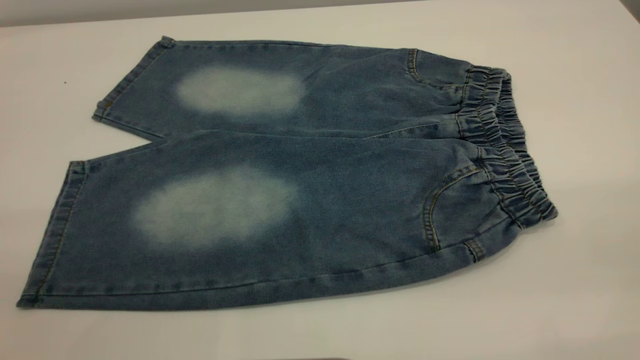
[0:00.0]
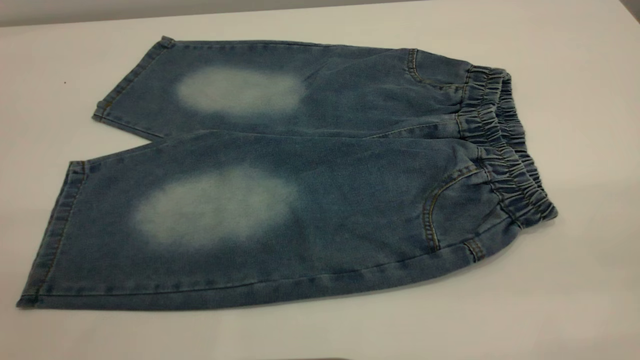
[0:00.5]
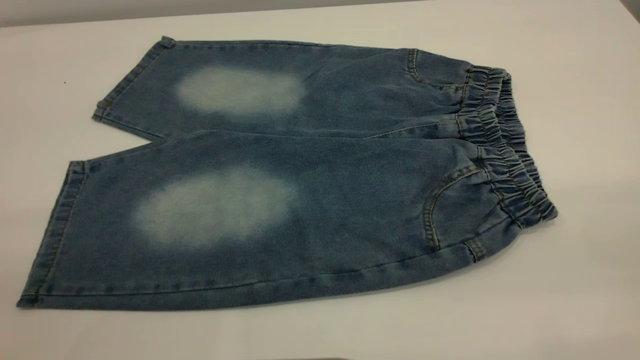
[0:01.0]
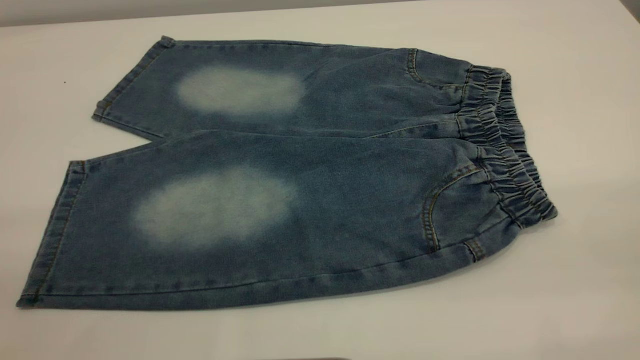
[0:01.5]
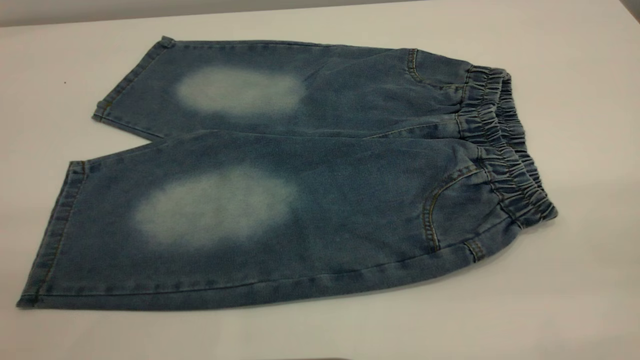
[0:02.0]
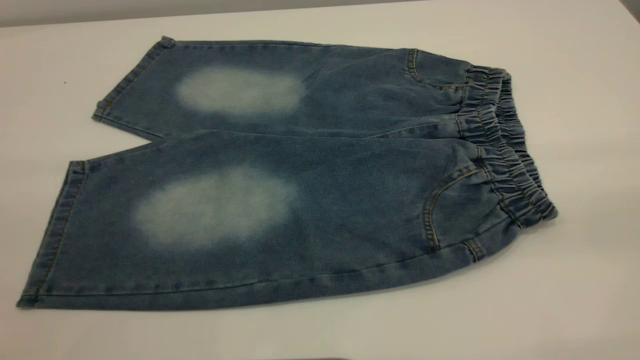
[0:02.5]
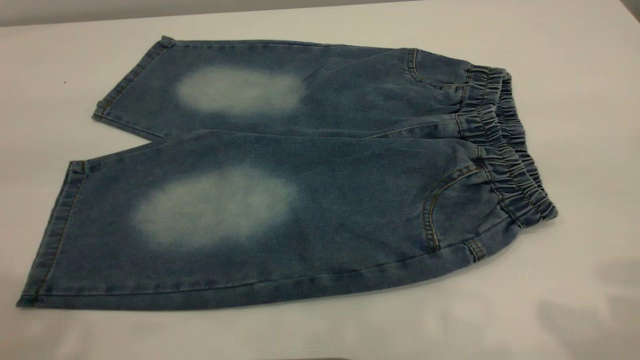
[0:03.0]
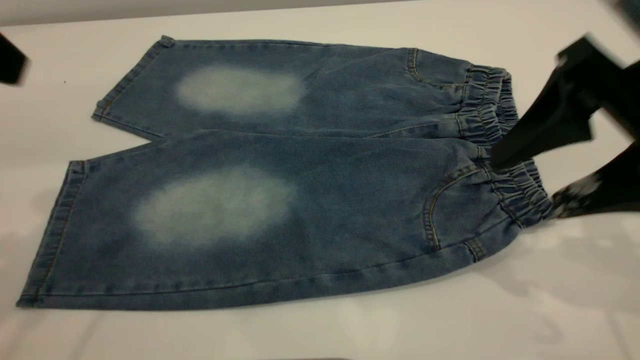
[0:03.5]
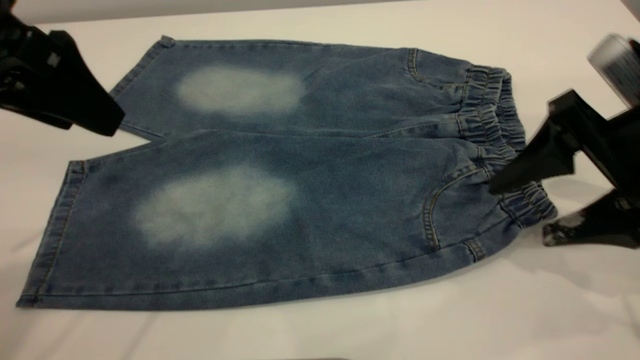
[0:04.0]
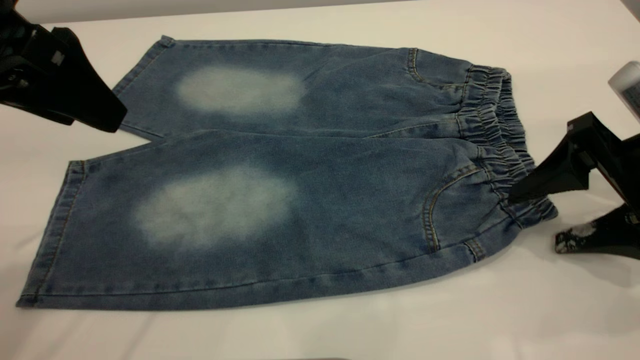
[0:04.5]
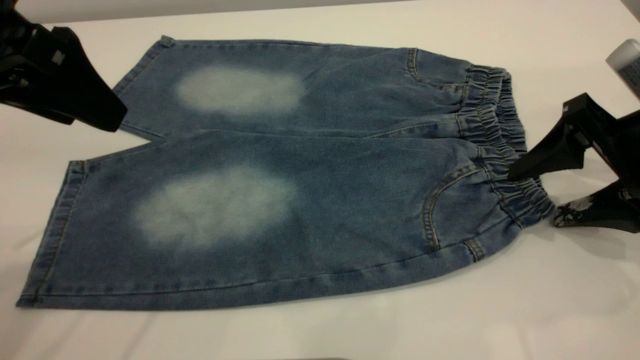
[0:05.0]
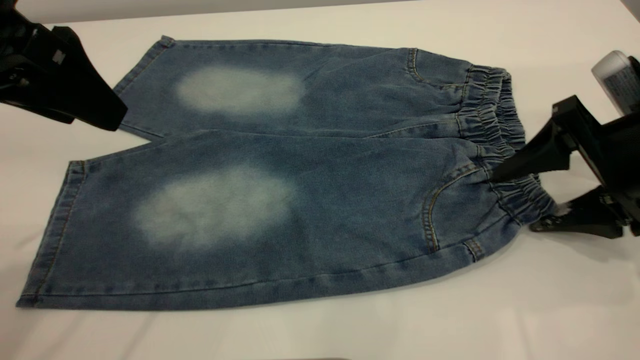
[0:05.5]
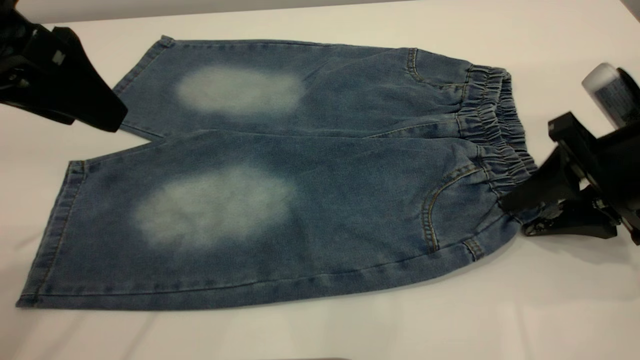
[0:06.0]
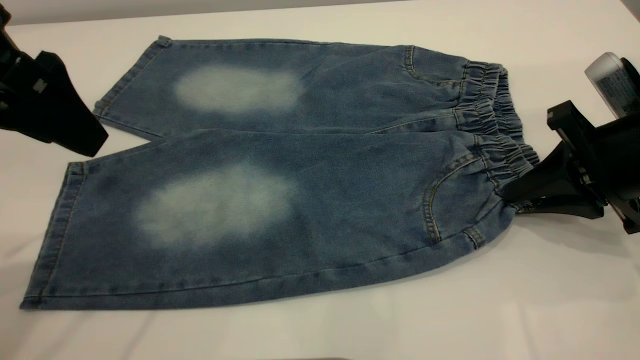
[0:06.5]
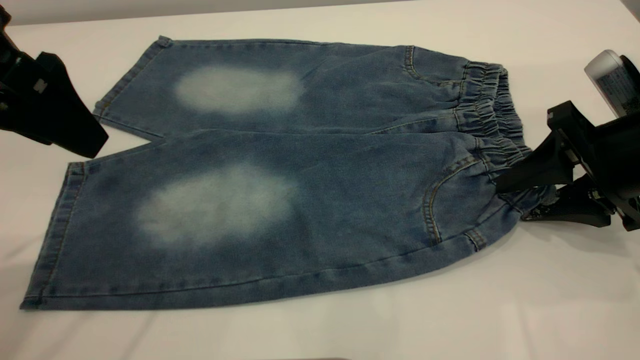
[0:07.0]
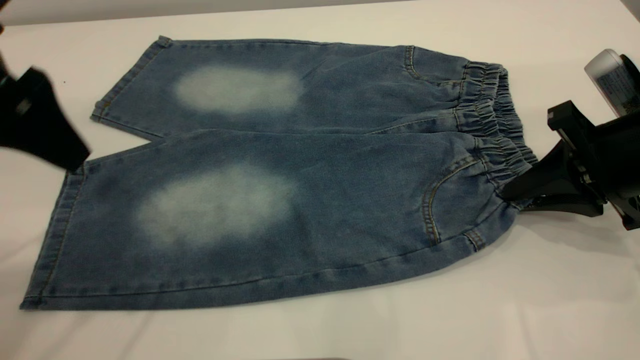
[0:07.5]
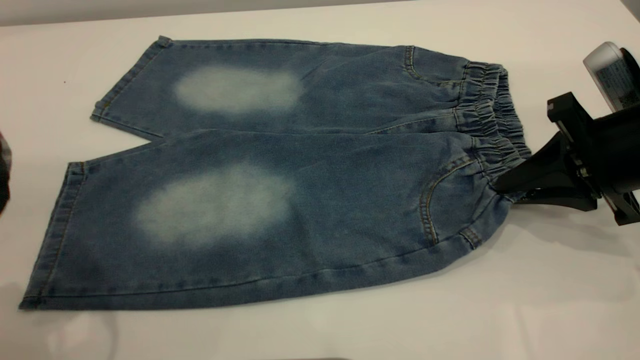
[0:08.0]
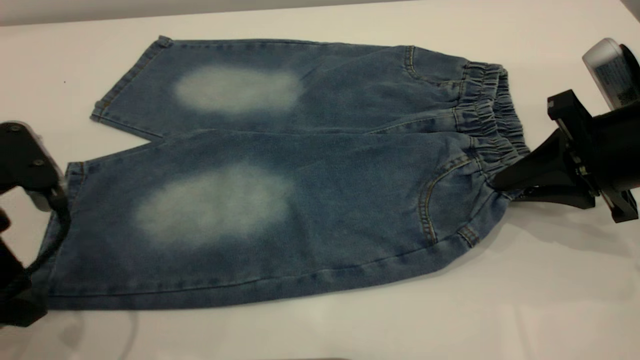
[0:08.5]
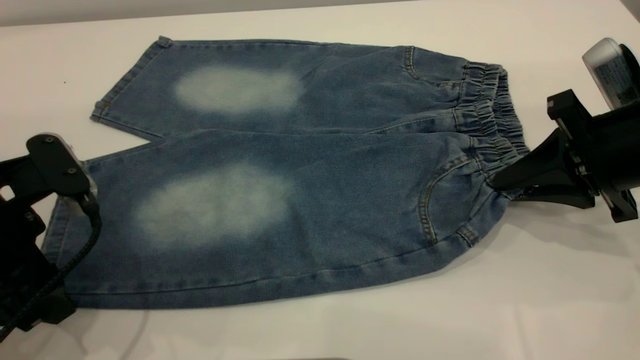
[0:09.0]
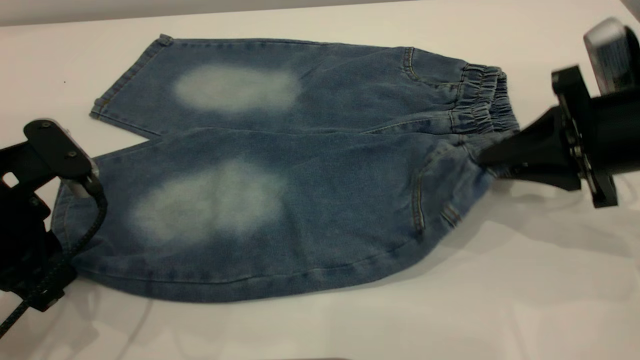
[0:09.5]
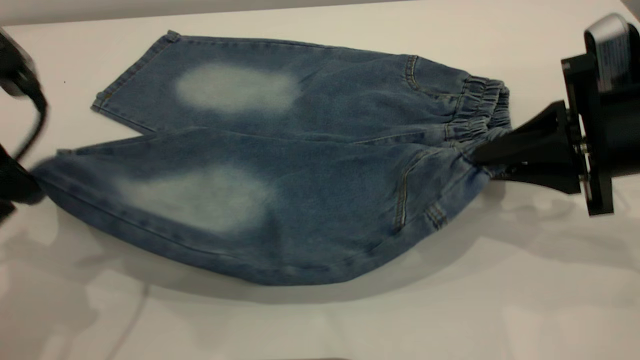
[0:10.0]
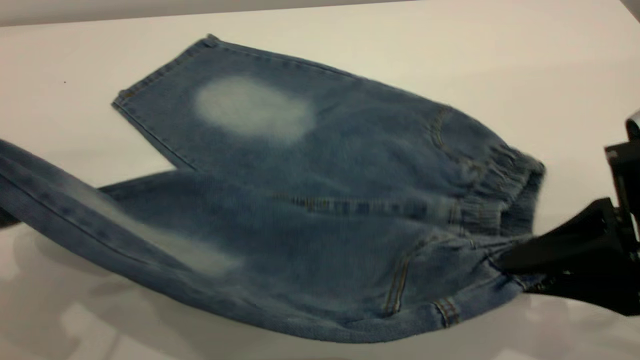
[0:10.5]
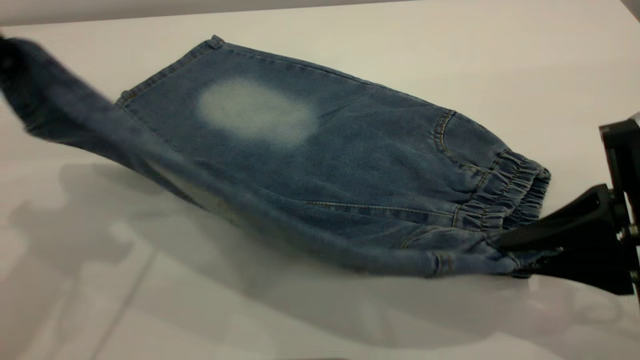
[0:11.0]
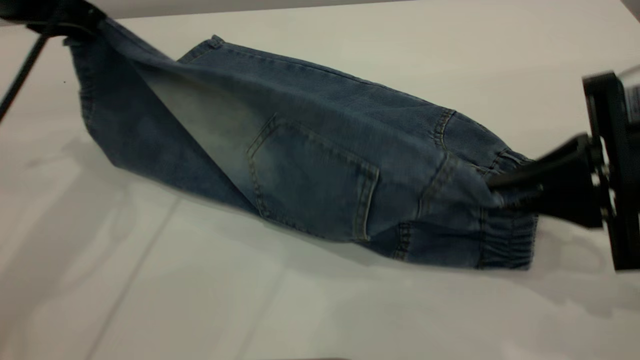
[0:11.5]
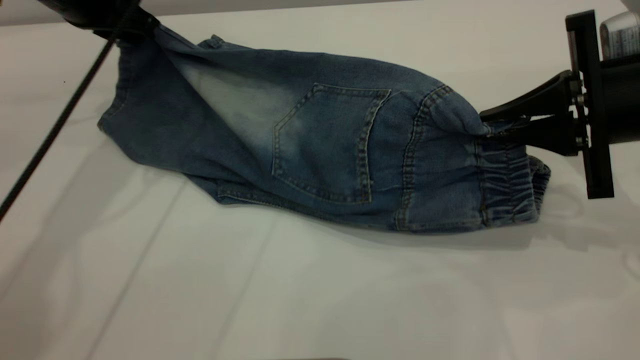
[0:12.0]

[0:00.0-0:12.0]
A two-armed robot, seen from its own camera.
0:00.0 to 0:02.0: The two grippers keep their place.
0:02.0 to 0:04.0: The right gripper goes some 30 cm forward and downward, while the left gripper goes approximately 25 cm forward, and opens.
0:04.0 to 0:06.0: The right gripper closes its fingers.
0:06.0 to 0:08.0: The left gripper shifts approximately 10 cm downward and backward.
0:08.0 to 0:10.0: The left gripper travels downward and back again, approximately 5 cm each way, and closes its fingers.
0:10.0 to 0:12.0: The left gripper shifts about 20 cm forward; the right gripper travels backward and back again, roughly 10 cm each way.

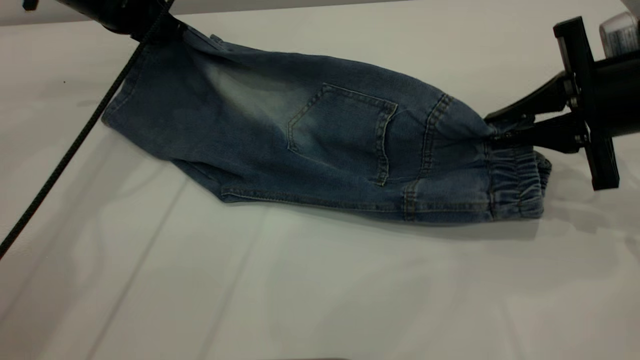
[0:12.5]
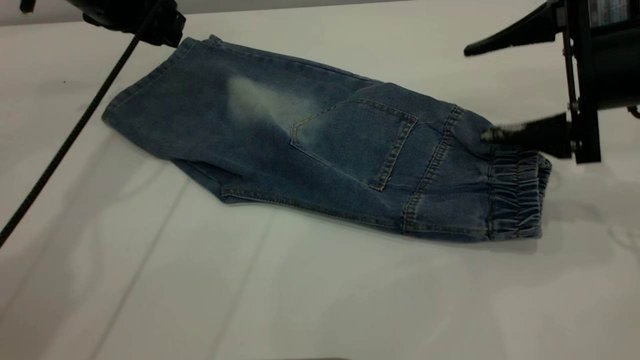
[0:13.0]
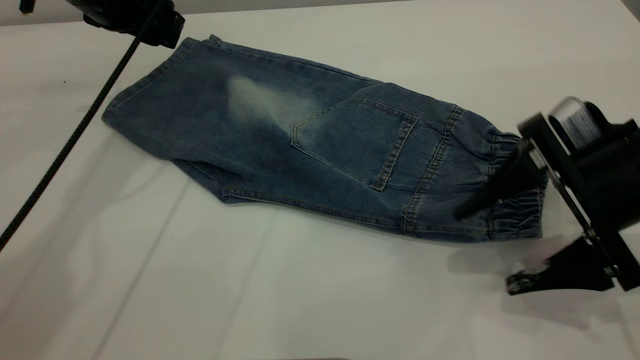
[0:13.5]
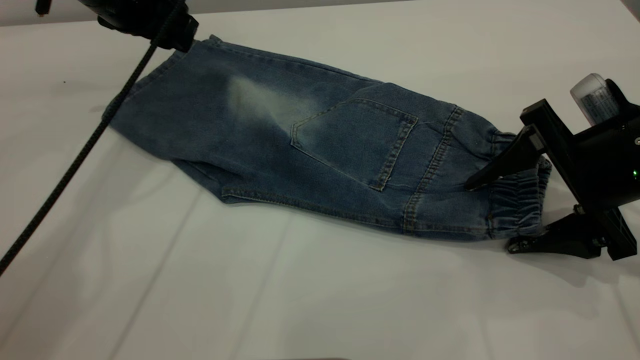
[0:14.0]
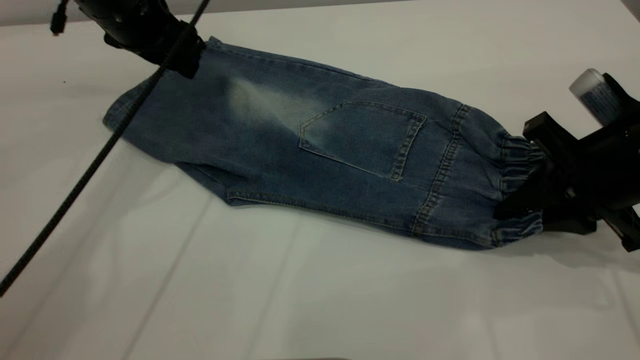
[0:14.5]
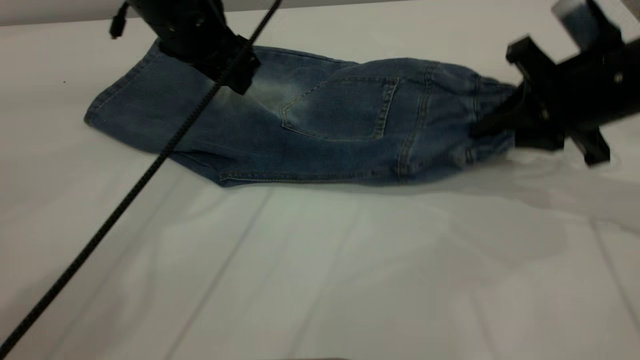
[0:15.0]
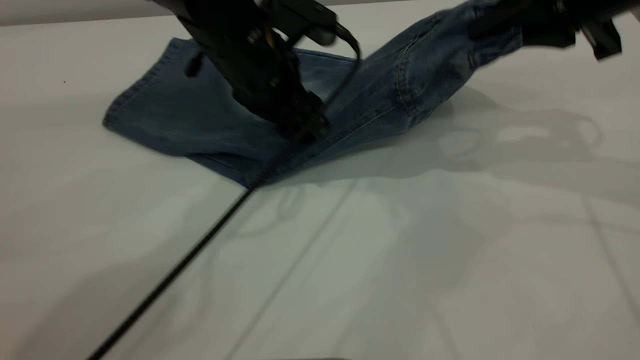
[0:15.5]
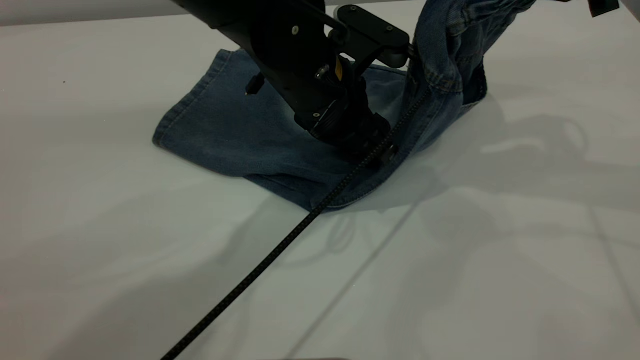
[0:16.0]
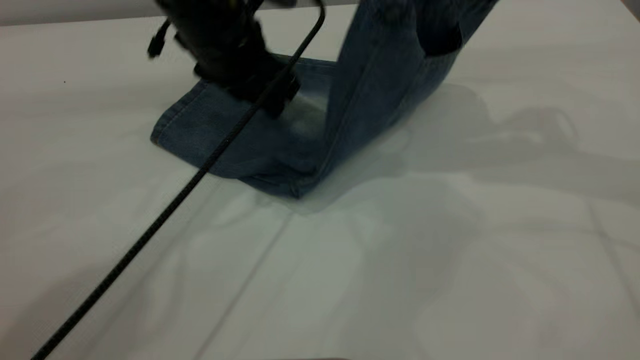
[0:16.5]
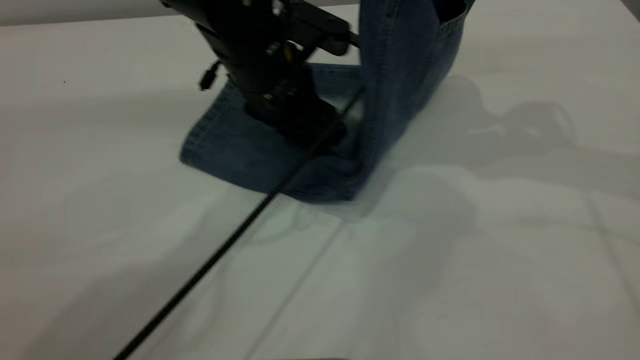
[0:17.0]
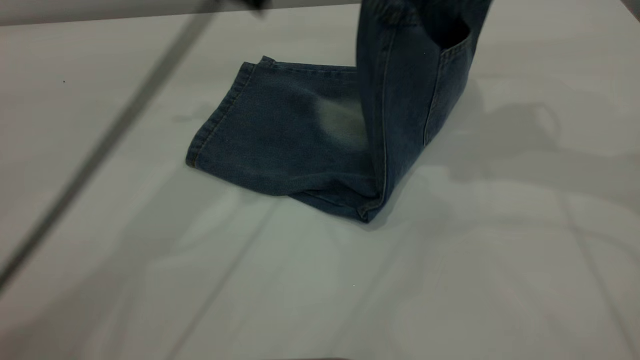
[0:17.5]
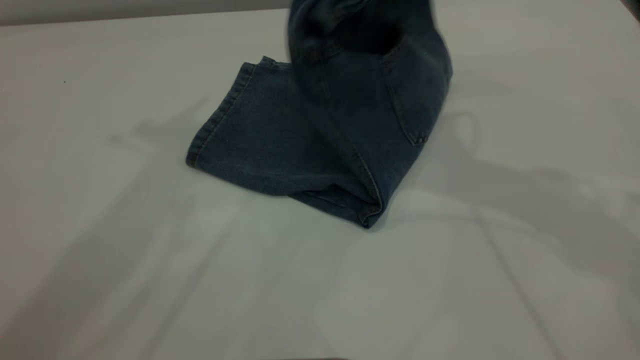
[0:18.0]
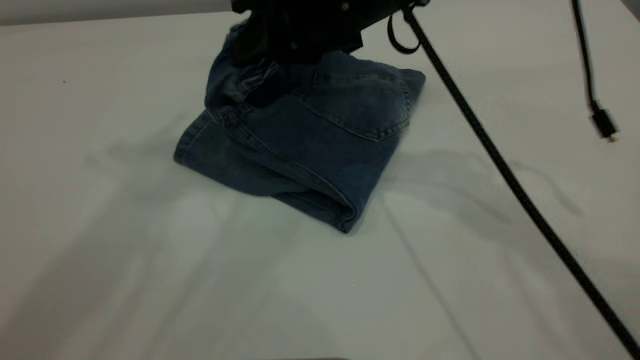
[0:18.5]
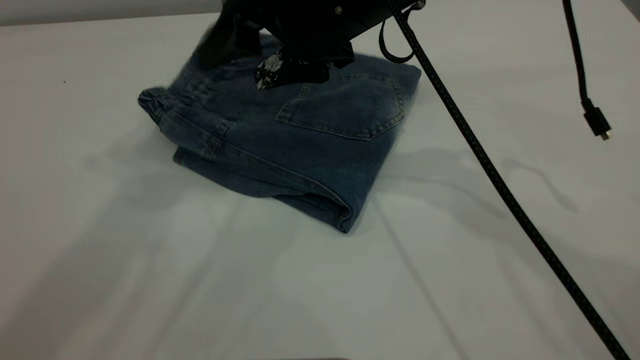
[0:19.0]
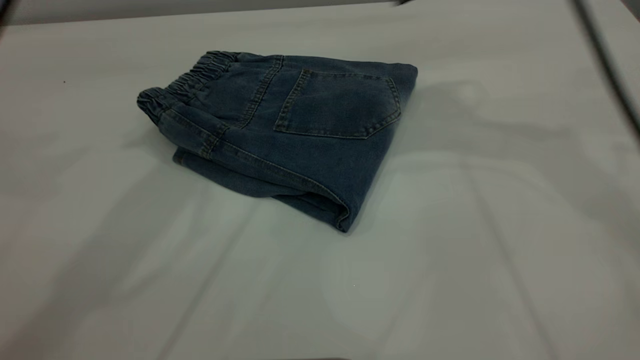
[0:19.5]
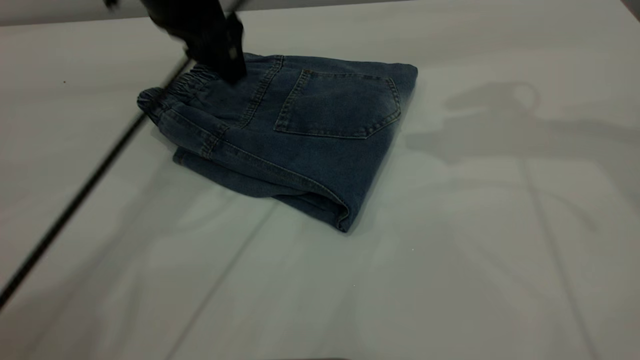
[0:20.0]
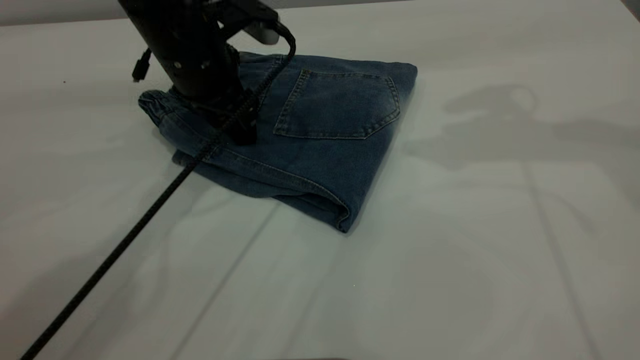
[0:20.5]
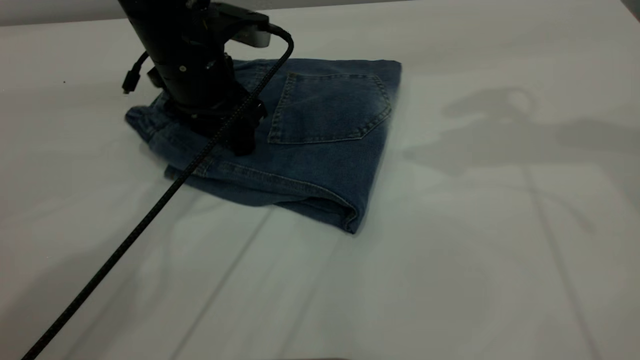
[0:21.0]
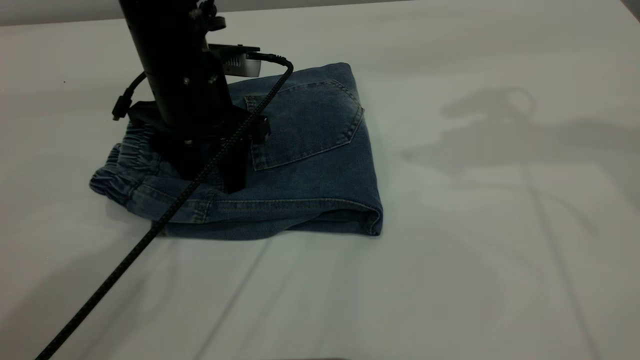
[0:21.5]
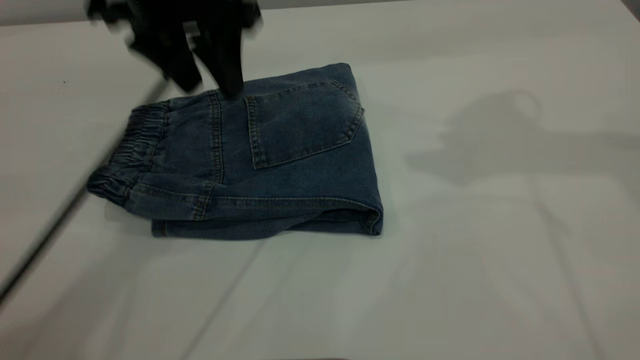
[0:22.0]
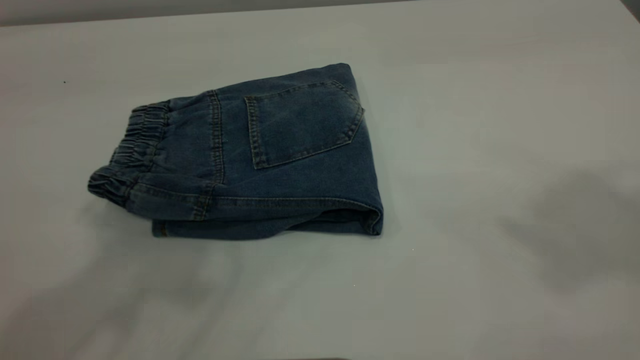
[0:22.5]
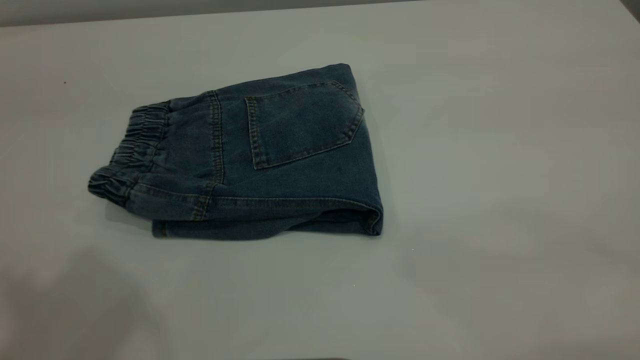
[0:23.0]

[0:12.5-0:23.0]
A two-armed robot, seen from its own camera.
Step, 0:14.0 to 0:19.0: Fold your pants from right to left.
0:12.5 to 0:14.5: The left gripper opens its fingers. The right gripper ends up roughly 5 cm from where it was, and opens, then closes once more.
0:14.5 to 0:16.5: The right gripper goes some 20 cm upward and forward. Meanwhile the left gripper travels to the right by roughly 10 cm.
0:16.5 to 0:19.0: The left gripper moves upward, approximately 30 cm. Meanwhile the right gripper goes roughly 20 cm to the left and downward, and opens up.
0:19.0 to 0:21.0: The right gripper is displaced to the right and upward by about 20 cm, while the left gripper shifts roughly 35 cm downward.
0:21.0 to 0:23.0: The left gripper heads upward and backward, covering approximately 40 cm. The right gripper heads backward and upward, covering approximately 40 cm.
